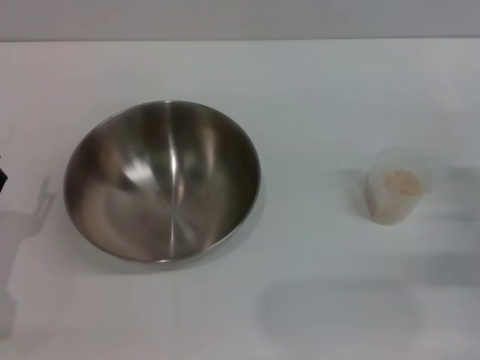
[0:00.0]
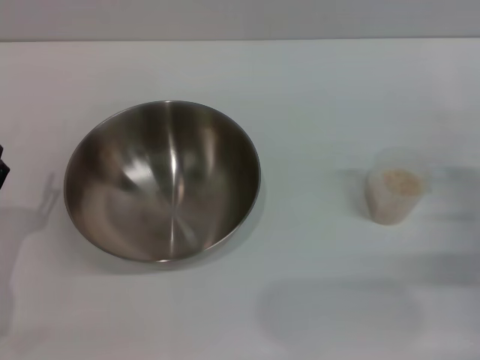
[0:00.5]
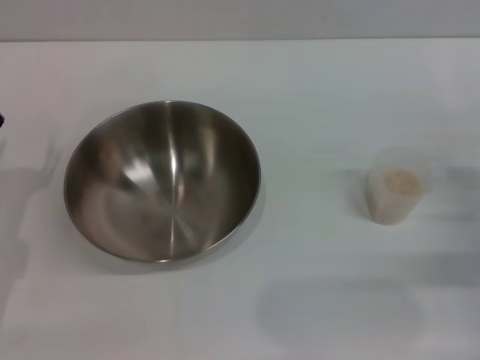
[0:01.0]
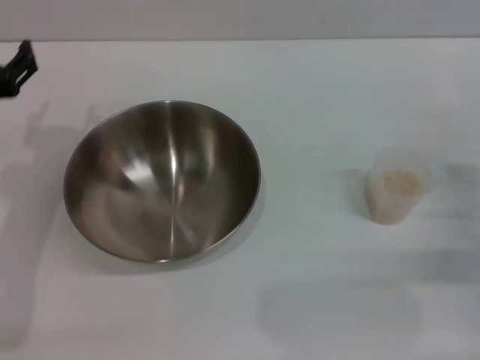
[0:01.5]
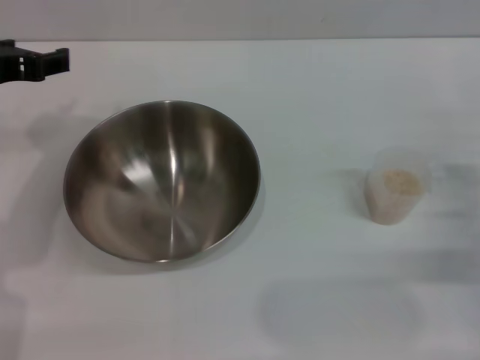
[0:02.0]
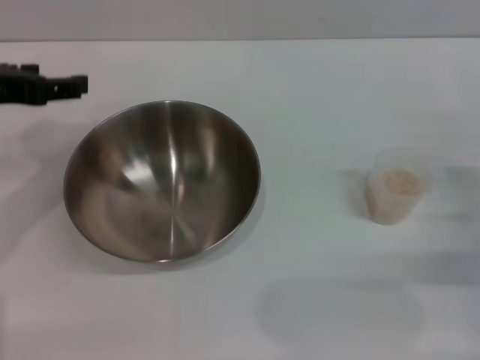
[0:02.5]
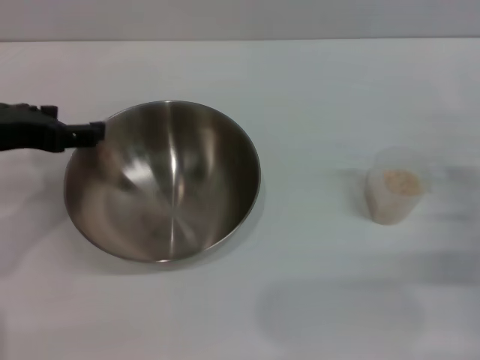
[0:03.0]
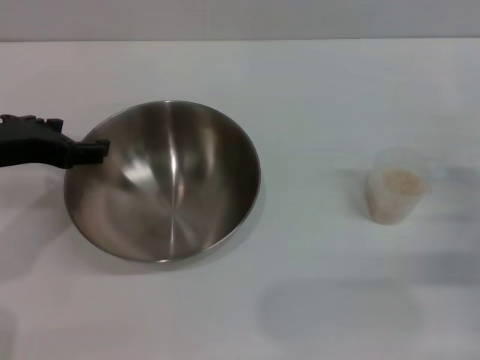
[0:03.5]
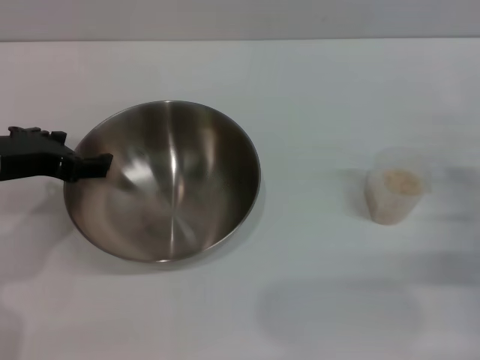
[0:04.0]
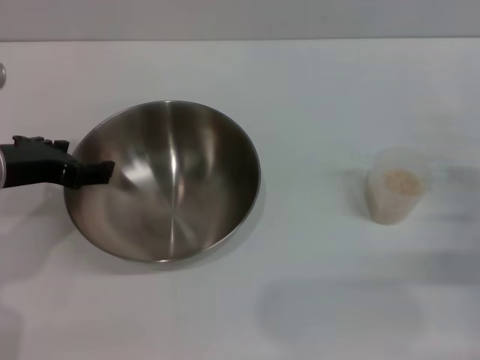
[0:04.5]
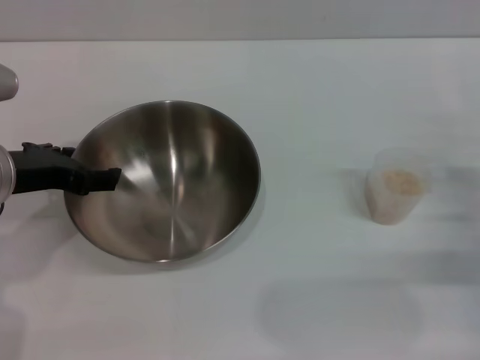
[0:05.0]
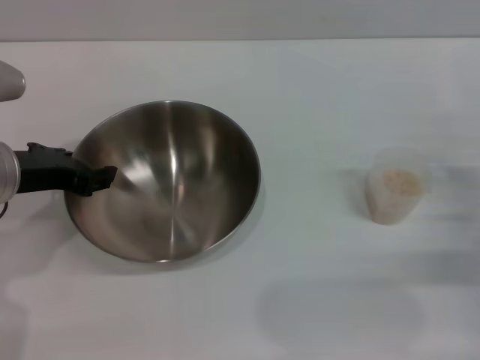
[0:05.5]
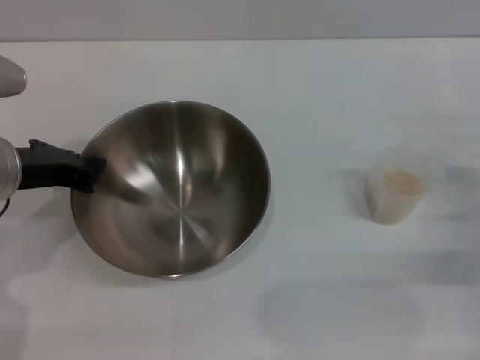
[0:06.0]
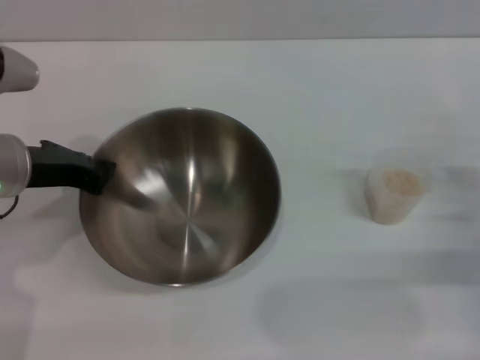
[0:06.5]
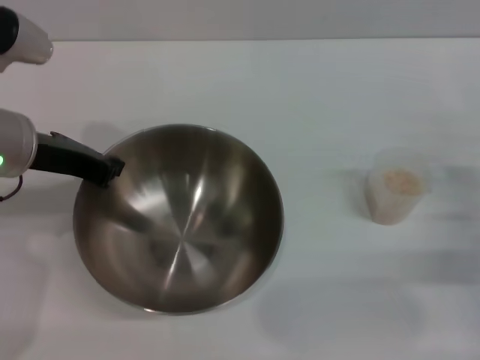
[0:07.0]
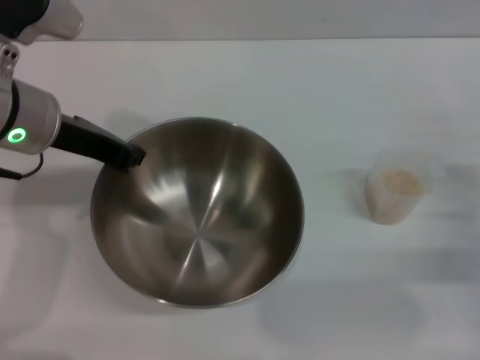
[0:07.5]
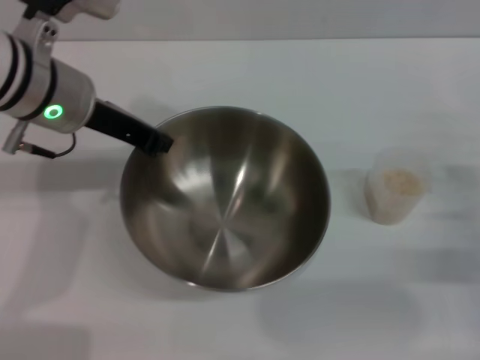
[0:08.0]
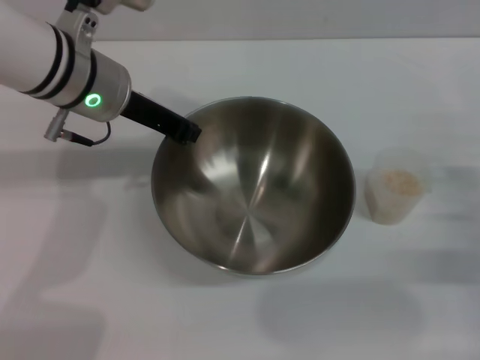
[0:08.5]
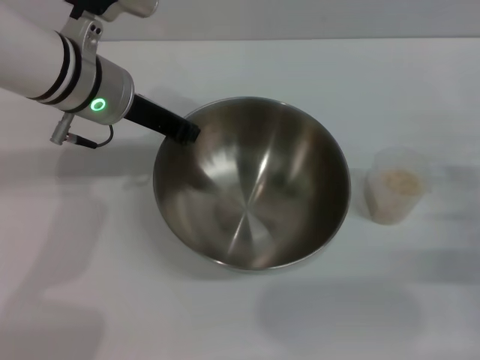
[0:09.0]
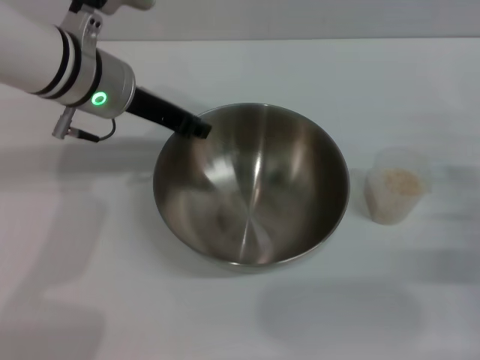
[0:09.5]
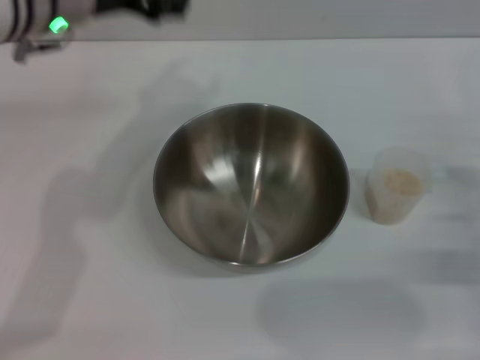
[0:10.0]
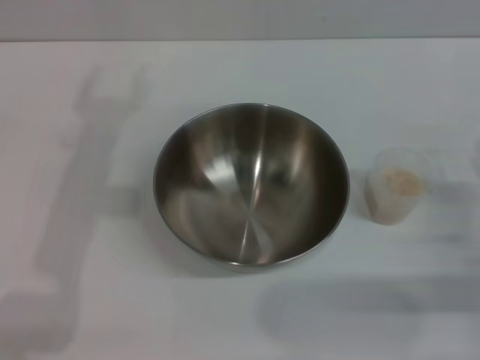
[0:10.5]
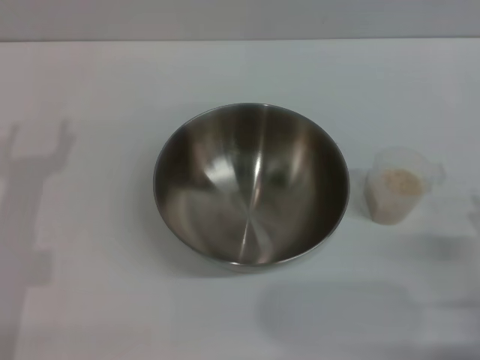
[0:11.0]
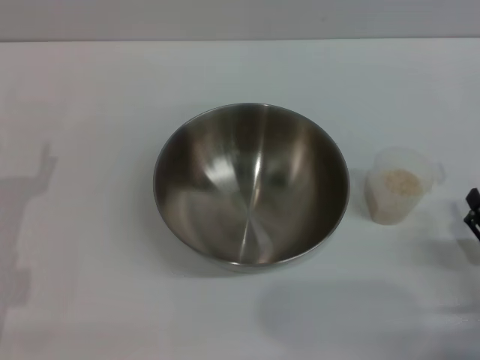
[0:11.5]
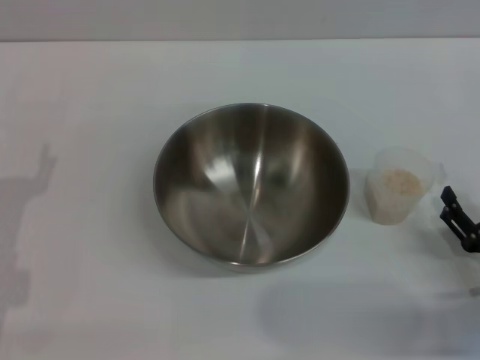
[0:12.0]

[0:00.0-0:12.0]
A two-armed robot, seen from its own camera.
Task of the whole recording: Place the bowl in the middle of the table with one hand and pour the rice from the grain cup into it with the other hand.
Step, 0:00.0 to 0:07.0: Pick up the bowl with the left gripper.
Step, 0:07.5 to 0:09.5: Place the bowl in the center of view with the left gripper.
0:00.0 to 0:02.0: The left gripper travels upward and forward by about 25 cm.
0:02.0 to 0:04.0: There are only small adjustments of the grippers.
0:04.0 to 0:06.0: The left gripper closes up.
0:06.0 to 0:08.0: The left gripper goes roughly 10 cm to the right and forward.
0:08.0 to 0:10.0: The left gripper shifts by about 5 cm, and opens its fingers.
0:10.0 to 0:12.0: The right gripper is displaced backward by about 5 cm. The left gripper heads downward, backward and to the left, covering some 30 cm.

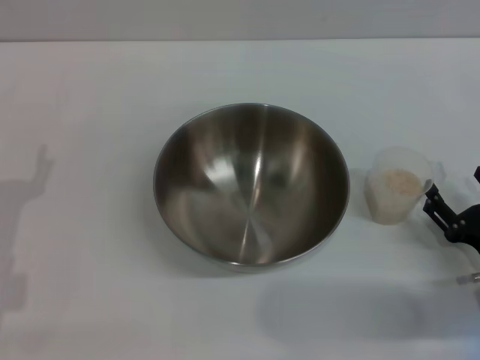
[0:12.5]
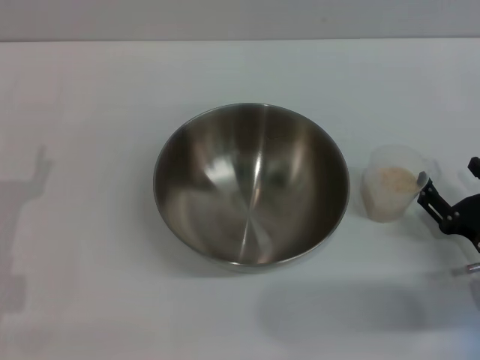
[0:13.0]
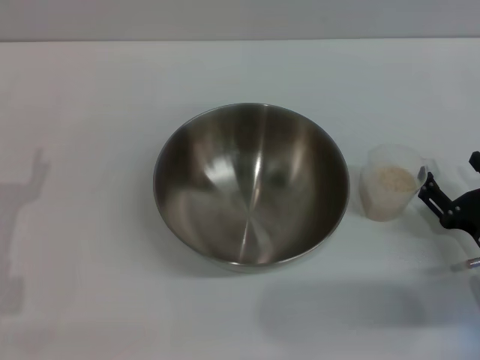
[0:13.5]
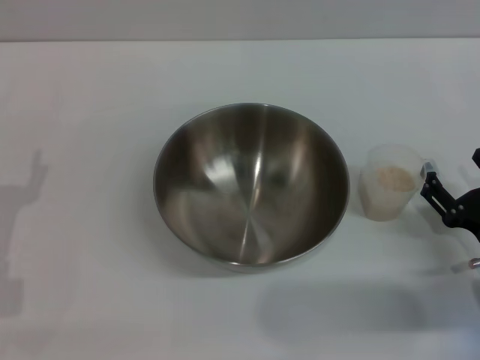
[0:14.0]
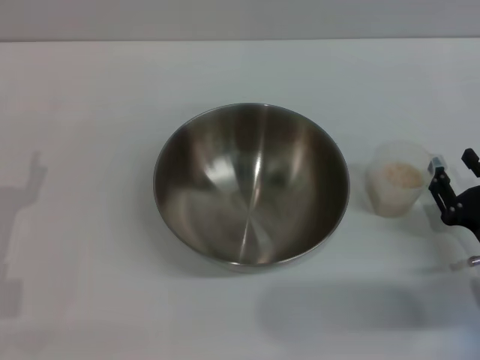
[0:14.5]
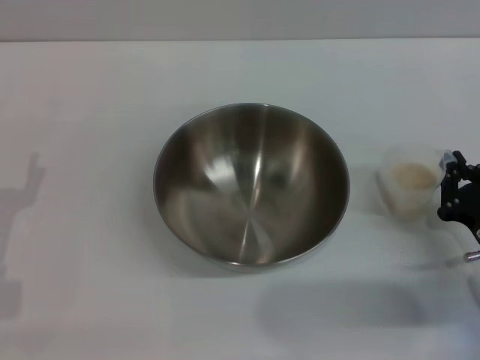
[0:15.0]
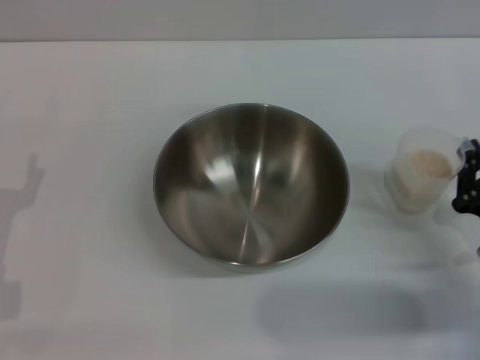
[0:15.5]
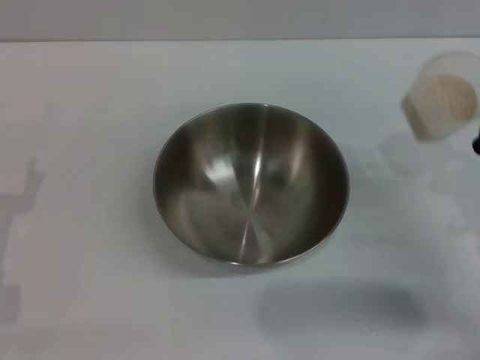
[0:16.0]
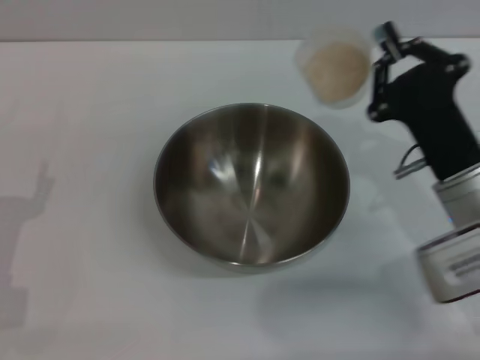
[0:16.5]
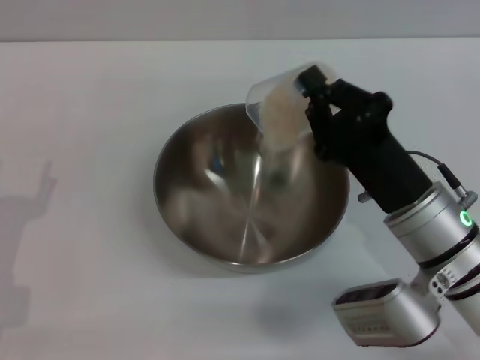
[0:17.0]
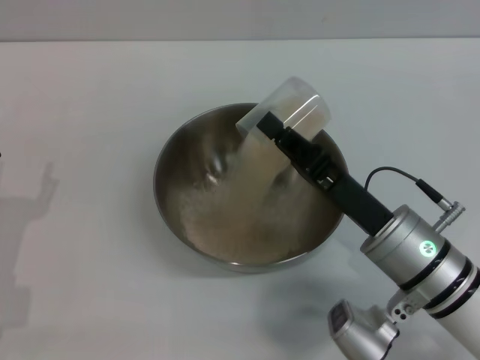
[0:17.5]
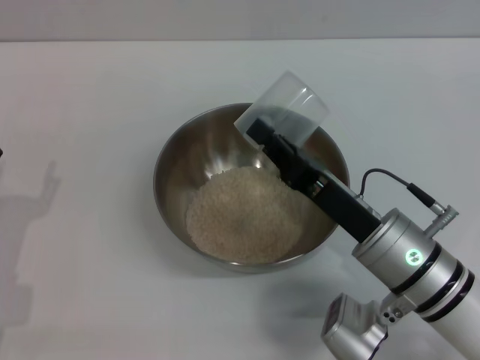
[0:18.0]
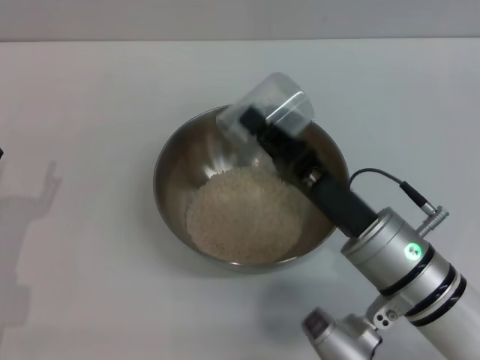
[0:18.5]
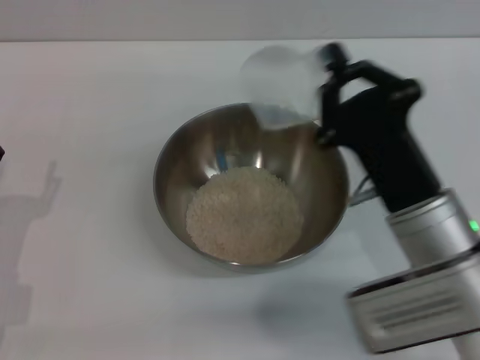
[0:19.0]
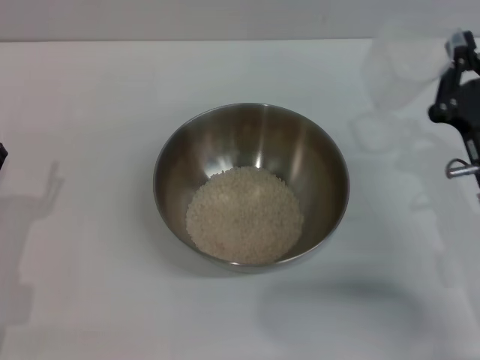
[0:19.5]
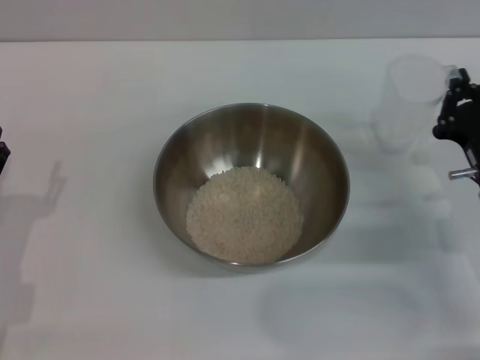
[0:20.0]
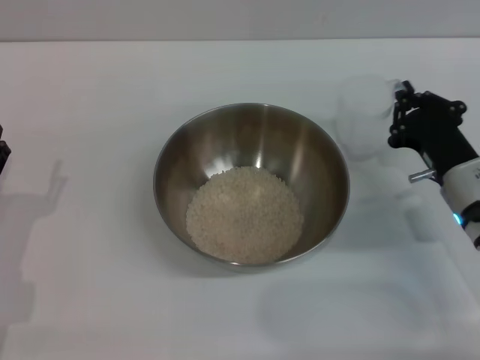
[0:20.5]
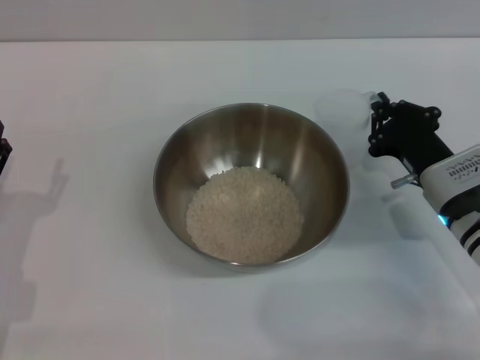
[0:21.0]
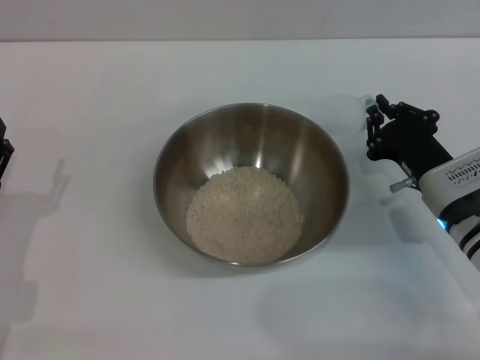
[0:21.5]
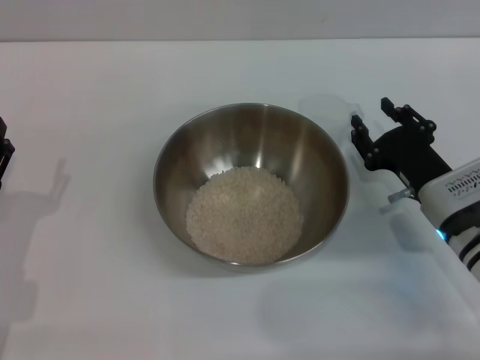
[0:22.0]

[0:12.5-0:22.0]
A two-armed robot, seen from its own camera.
Task of the whole recording: Place the bowl in the middle of the table with one hand and pour the rice from the grain cup into it with the other hand.
Step, 0:12.5 to 0:15.5: Pick up the cup with rice in it with the right gripper.
Step, 0:16.0 to 0:19.0: Pour the rice from the cup into the bowl with the right gripper.
0:12.5 to 0:14.5: The grippers move only a little.
0:14.5 to 0:16.5: The right gripper goes roughly 15 cm to the left, upward and forward, and closes its fingers.
0:16.5 to 0:18.0: The right gripper travels to the left by approximately 5 cm.
0:18.0 to 0:20.0: The right gripper goes about 10 cm to the right.
0:20.0 to 0:22.0: There are only small adjustments of the grippers.

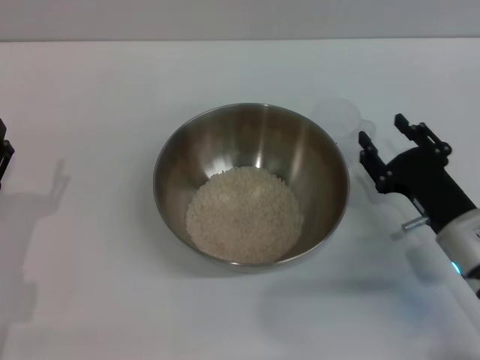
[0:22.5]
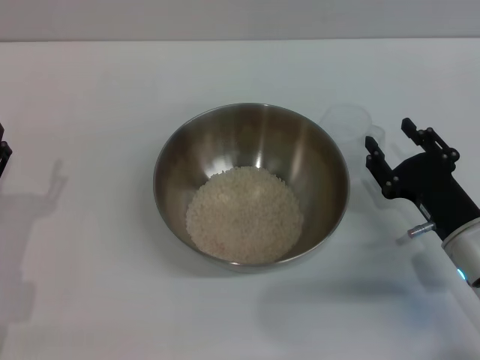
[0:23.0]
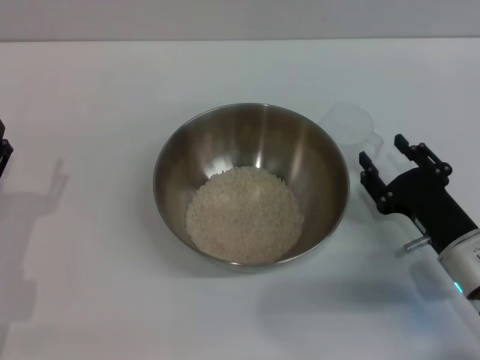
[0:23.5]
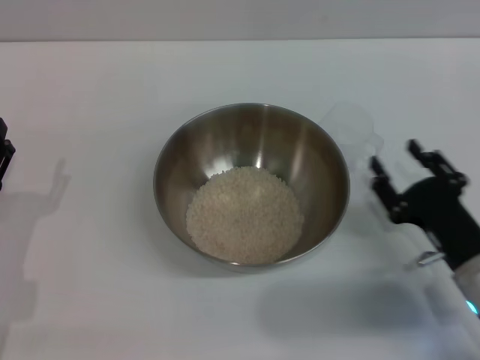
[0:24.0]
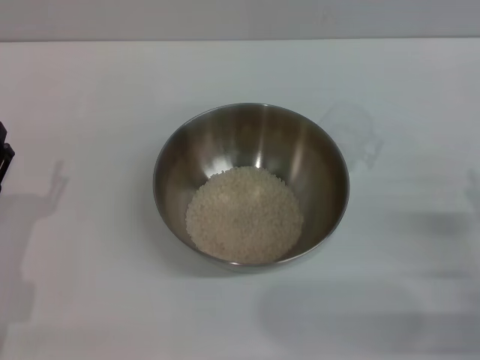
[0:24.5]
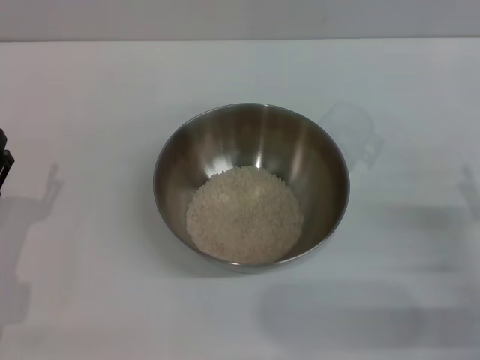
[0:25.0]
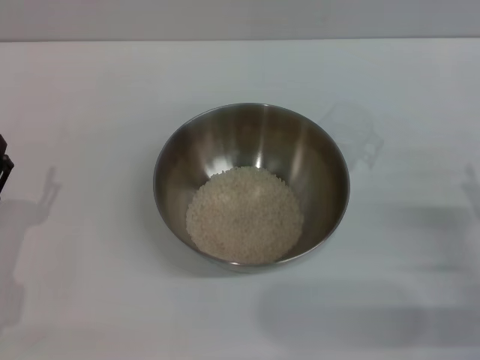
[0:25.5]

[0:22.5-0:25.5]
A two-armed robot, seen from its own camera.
Task of the whole recording: Place the bowl in the middle of the table with one hand and pour the rice from the grain cup into it with the other hand.
0:22.5 to 0:24.0: There are only small adjustments of the grippers.
0:24.0 to 0:25.5: The right gripper heads to the right, covering about 5 cm.
